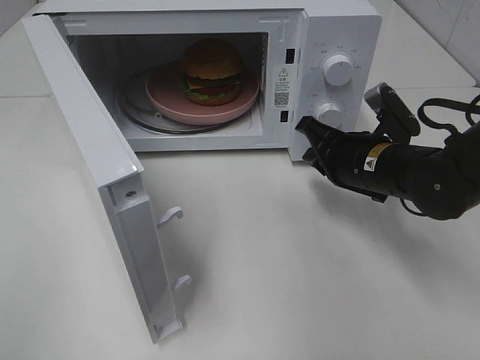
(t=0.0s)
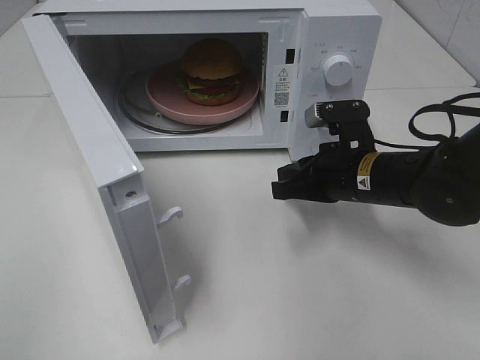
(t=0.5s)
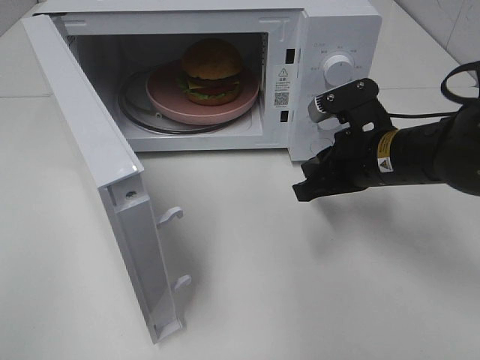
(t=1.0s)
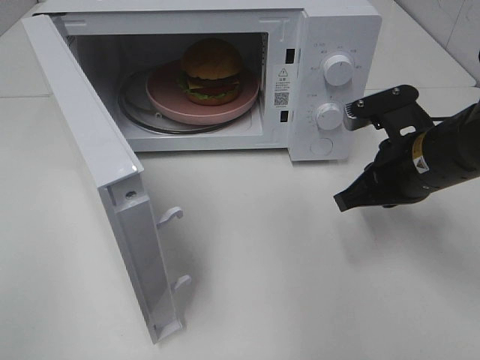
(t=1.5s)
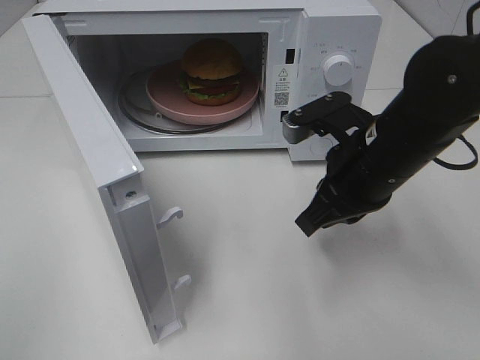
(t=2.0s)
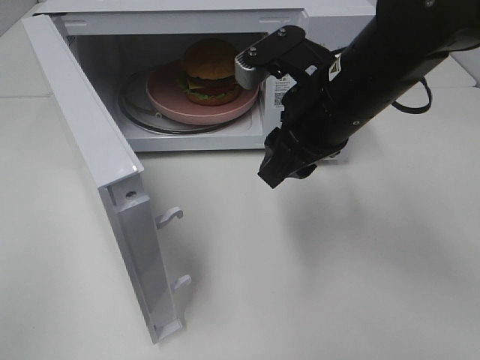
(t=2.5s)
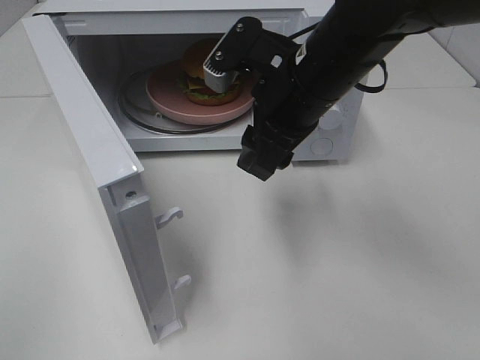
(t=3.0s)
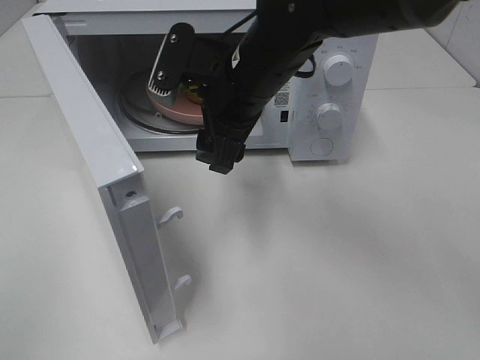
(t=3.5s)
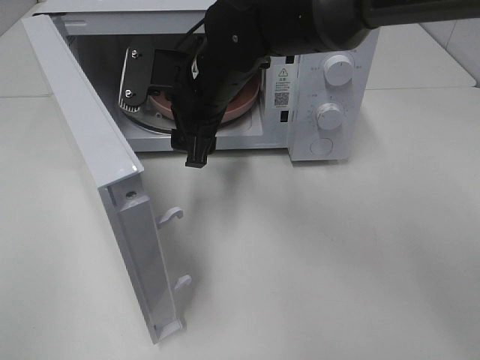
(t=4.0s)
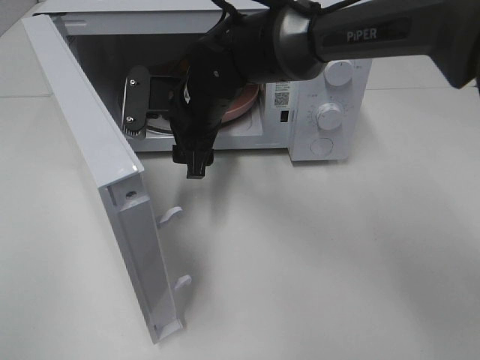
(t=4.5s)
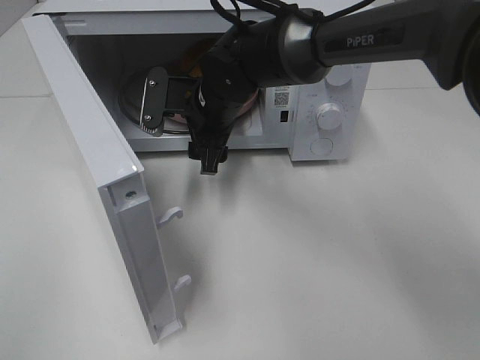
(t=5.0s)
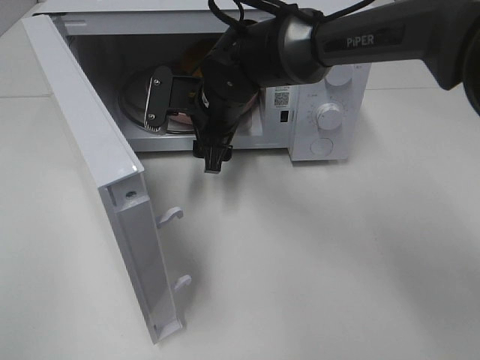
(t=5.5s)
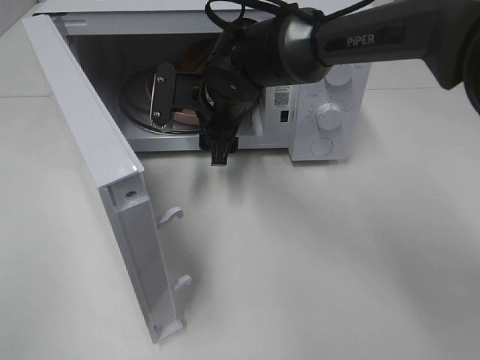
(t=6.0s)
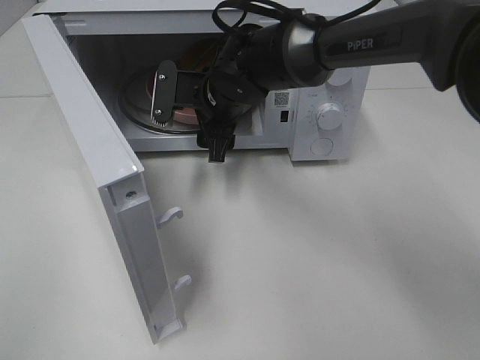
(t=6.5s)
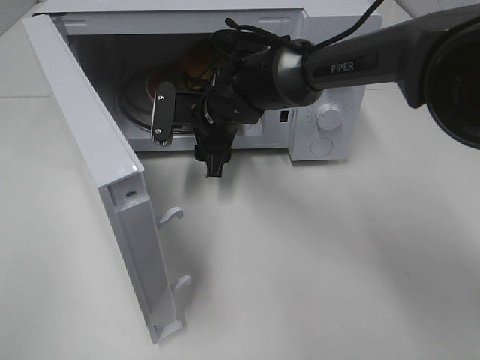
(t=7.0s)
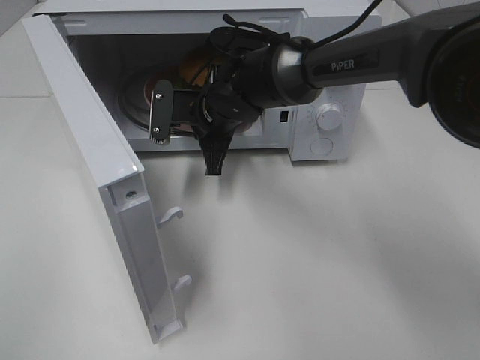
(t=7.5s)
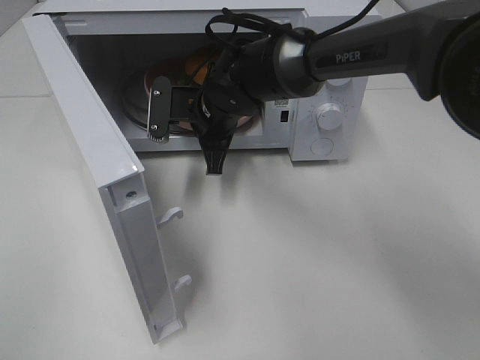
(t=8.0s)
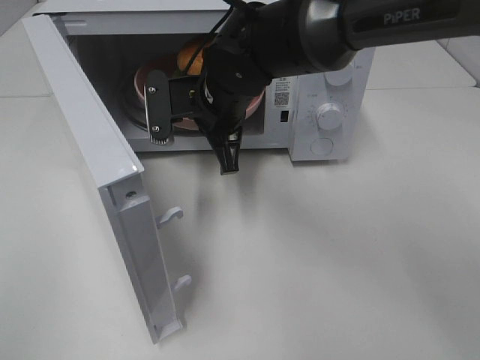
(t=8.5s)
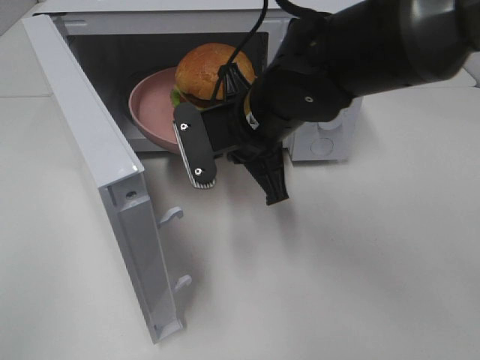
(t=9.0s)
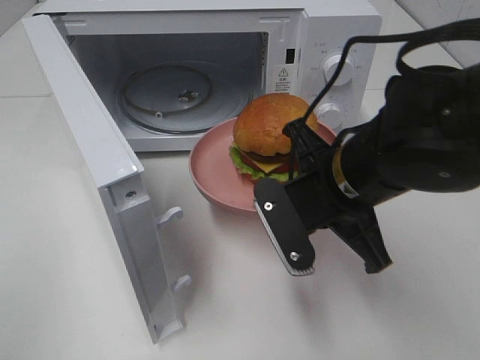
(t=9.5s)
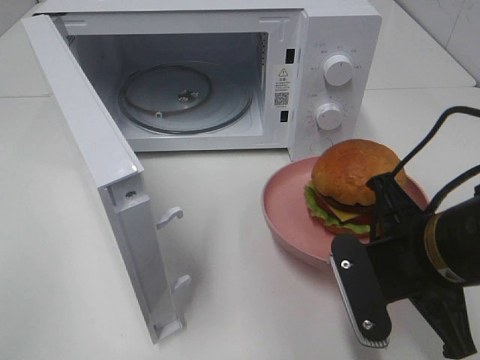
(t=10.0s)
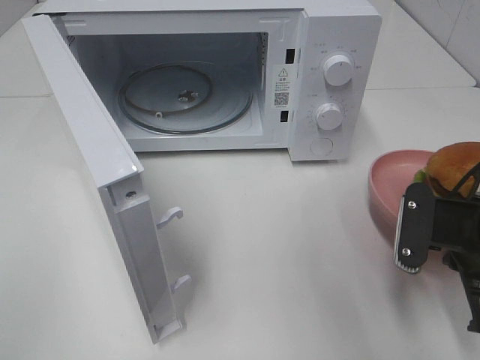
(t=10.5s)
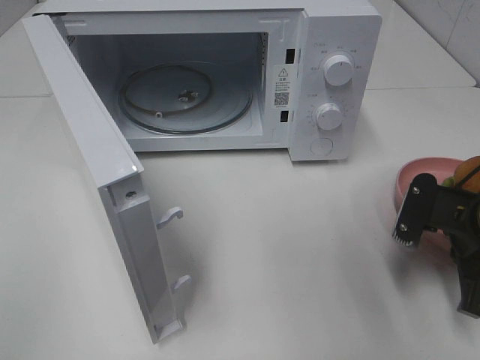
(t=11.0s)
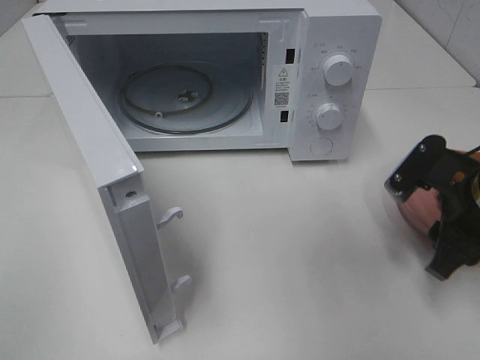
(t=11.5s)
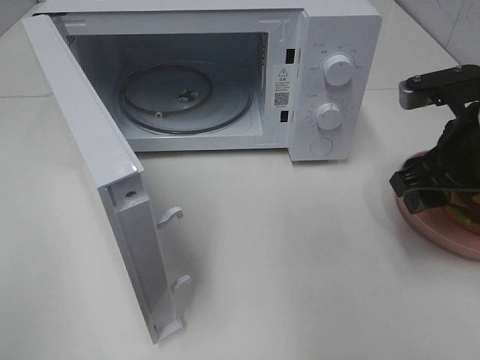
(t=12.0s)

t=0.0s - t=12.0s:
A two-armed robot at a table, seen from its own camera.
Task of the whole recording: Heat the burger.
Step, t=0.0s - t=7.5s: Right hand: grab the plate with the hamburger.
Step, t=8.0s - t=11.0s: Right hand: place the plate on the table.
t=0.0s - t=2.0s: The right gripper moves upward and backward, roughly 10 cm.
t=2.0s - t=4.0s: The right gripper shifts approximately 20 cm to the left and forward, and opens its fingers.
t=4.0s - t=6.0s: The right gripper shifts by some 5 cm.
t=6.0s - t=8.0s: The right gripper closes its fingers.
t=8.0s - t=10.0s: The right gripper is displaced backward and to the right by roughly 30 cm.
t=10.0s - t=12.0s: The right gripper shifts roughly 10 cm forward, to the right and upward, and opens.

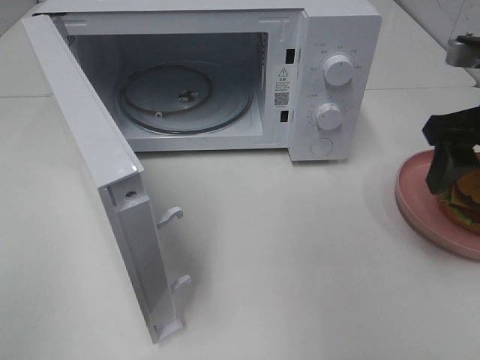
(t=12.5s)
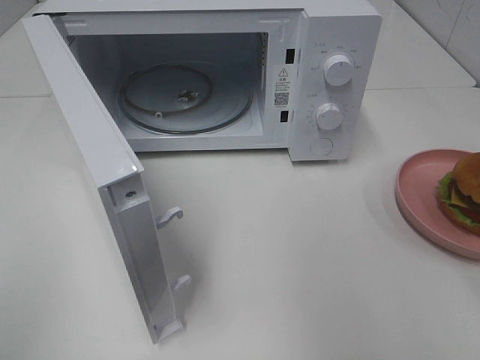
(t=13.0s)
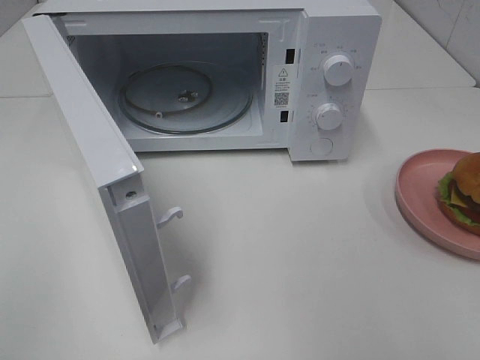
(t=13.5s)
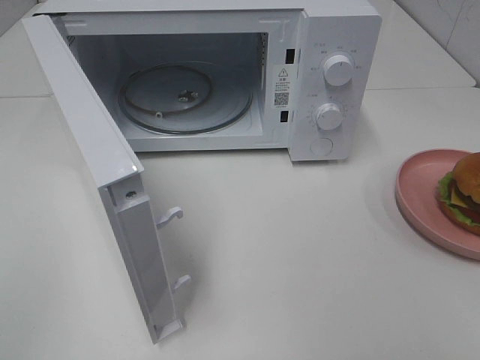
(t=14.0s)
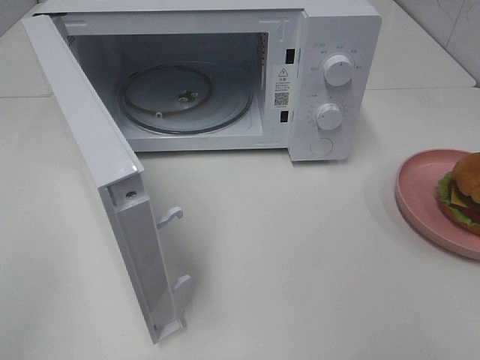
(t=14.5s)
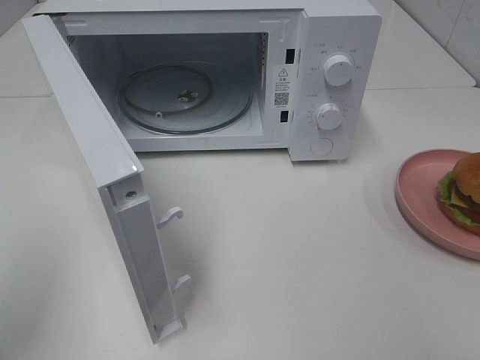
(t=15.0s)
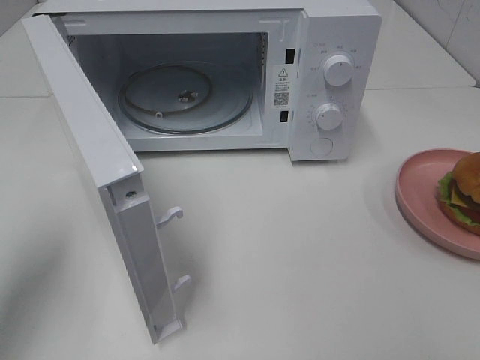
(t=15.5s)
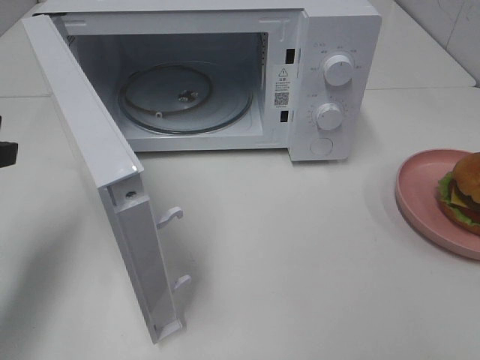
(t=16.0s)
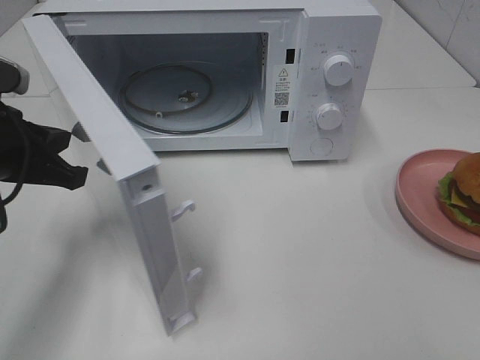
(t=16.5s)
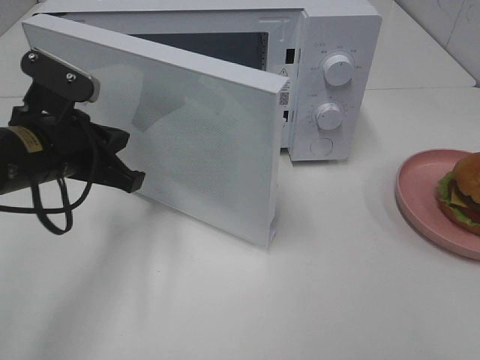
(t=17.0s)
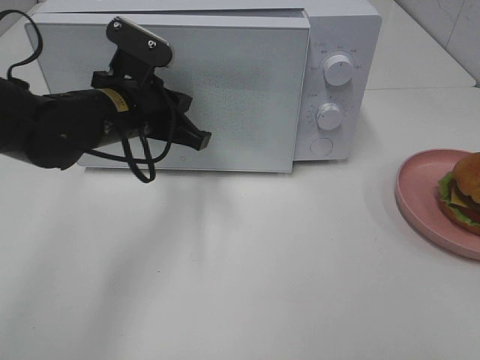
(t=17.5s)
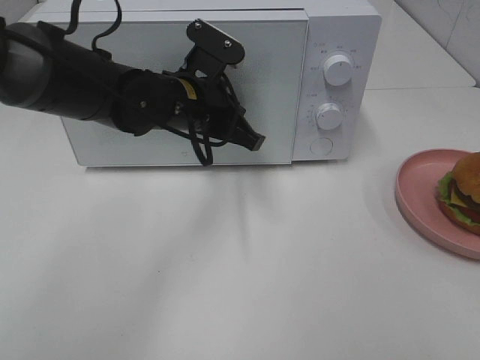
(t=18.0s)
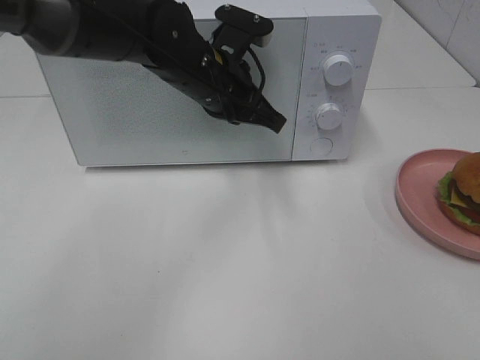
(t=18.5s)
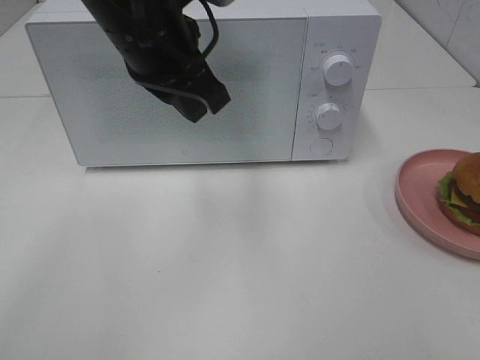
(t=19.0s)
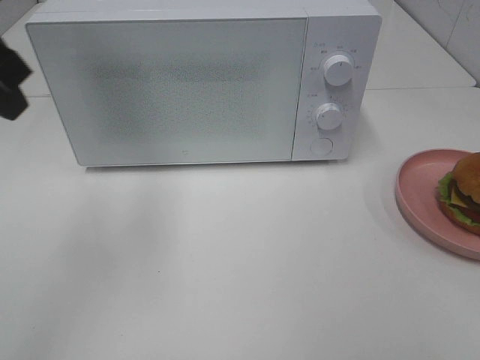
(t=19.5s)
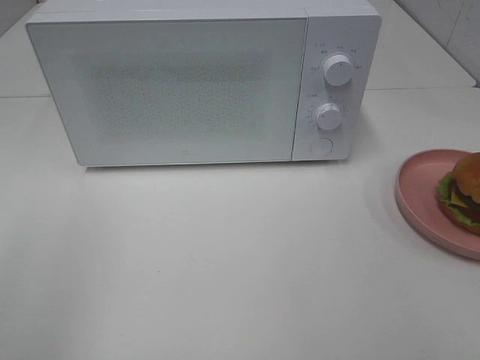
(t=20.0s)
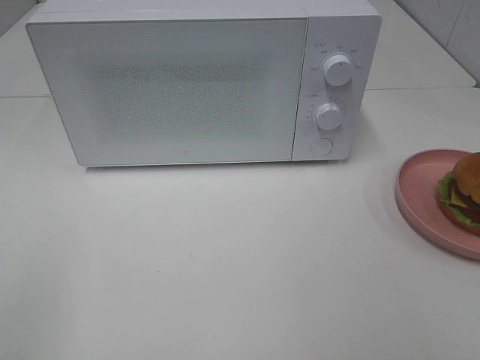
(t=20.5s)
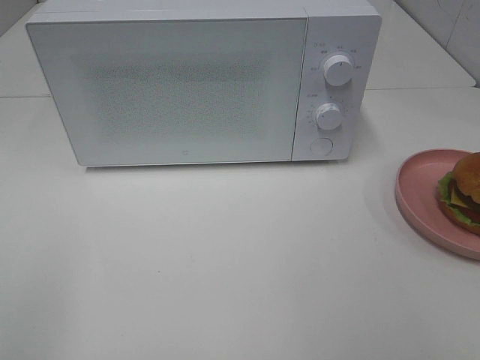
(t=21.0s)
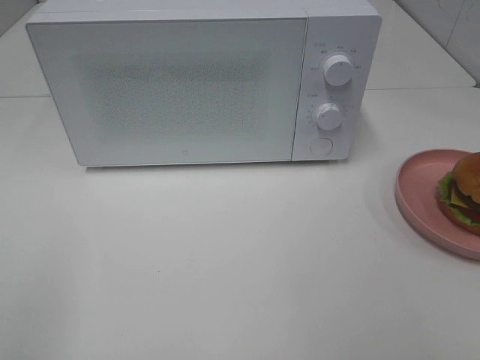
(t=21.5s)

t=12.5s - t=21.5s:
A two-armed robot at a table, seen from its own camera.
Task of the whole recording: Heat the burger.
Step, t=12.5s - t=18.0s: Left hand: close the microwave door.
t=12.5s - t=14.5s: The right gripper is displaced backward by approximately 25 cm.
t=14.5s - t=17.0s: The left gripper shifts approximately 35 cm forward, to the right and downward.
t=17.0s - t=19.5s: The left gripper shifts approximately 15 cm upward, moves about 15 cm to the right and comes back, and opens, then closes once more.
t=19.5s - t=21.5s: The left gripper shifts some 25 cm backward.

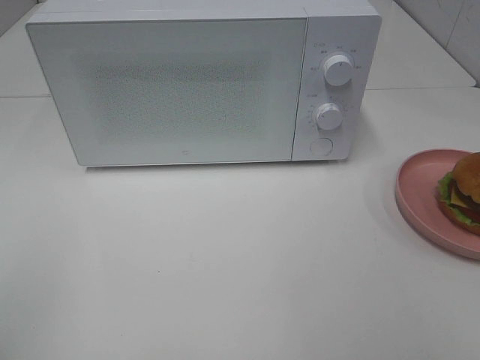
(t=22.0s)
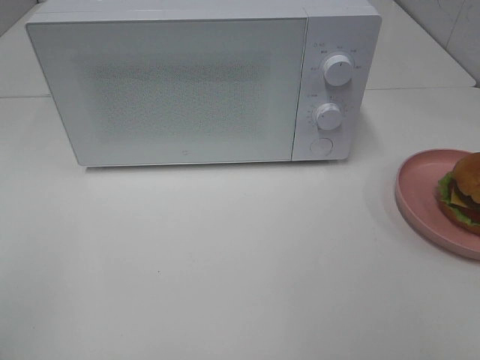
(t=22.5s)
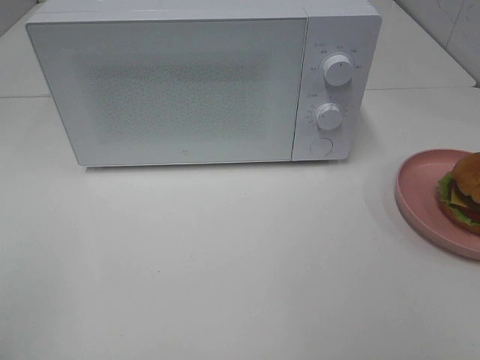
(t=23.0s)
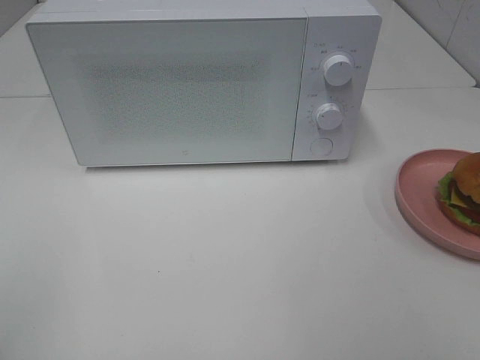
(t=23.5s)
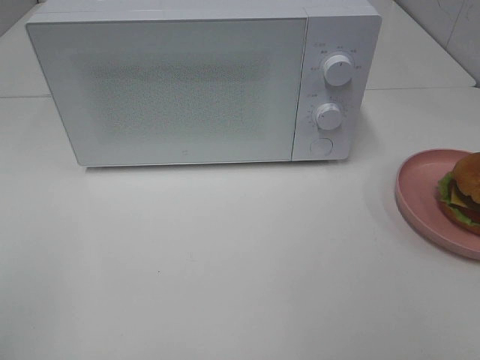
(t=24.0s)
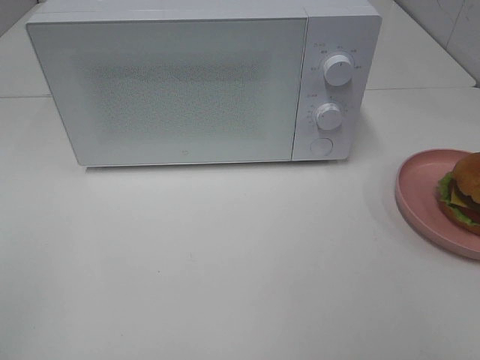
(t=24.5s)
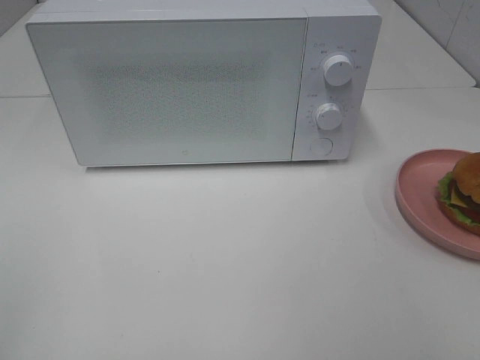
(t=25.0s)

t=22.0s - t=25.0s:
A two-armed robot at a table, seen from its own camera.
Task of the whole recording: Heat the burger.
t=22.0s - t=23.5s: Both grippers stay about where they are.
